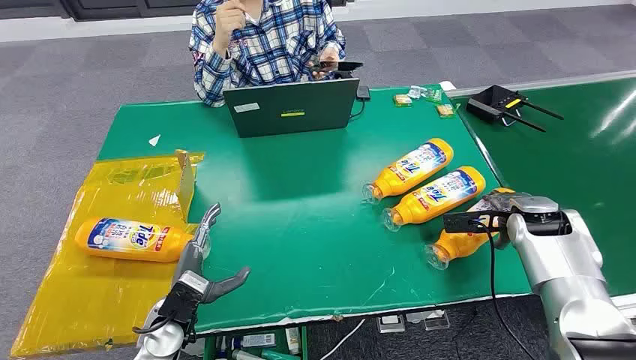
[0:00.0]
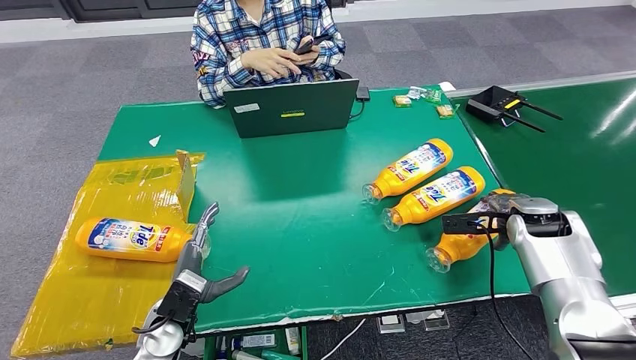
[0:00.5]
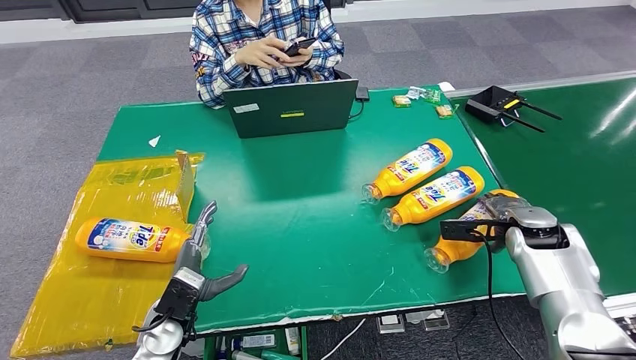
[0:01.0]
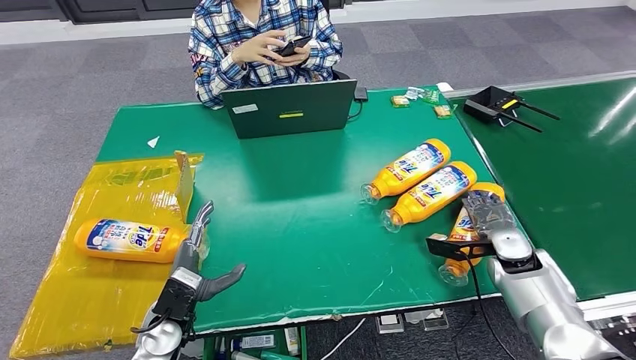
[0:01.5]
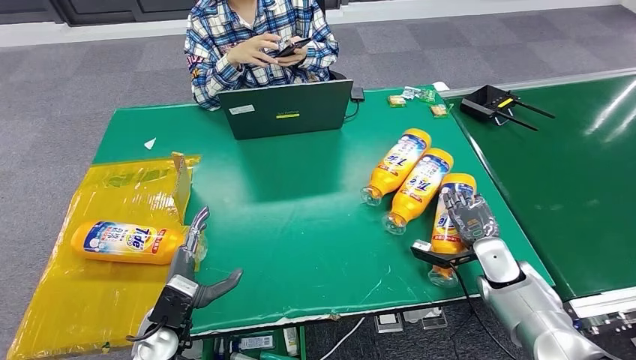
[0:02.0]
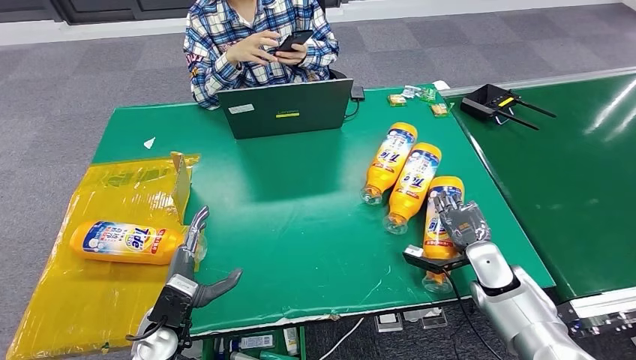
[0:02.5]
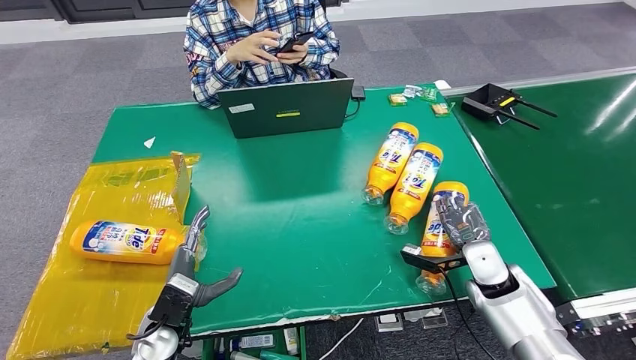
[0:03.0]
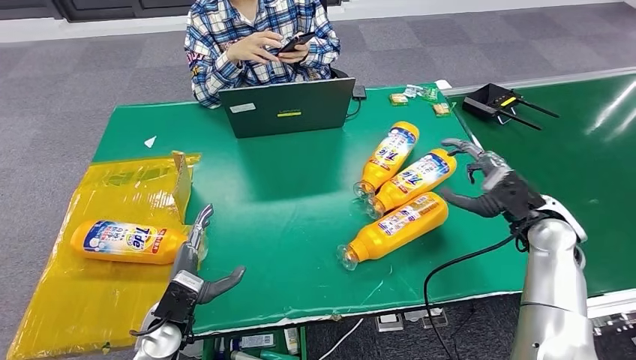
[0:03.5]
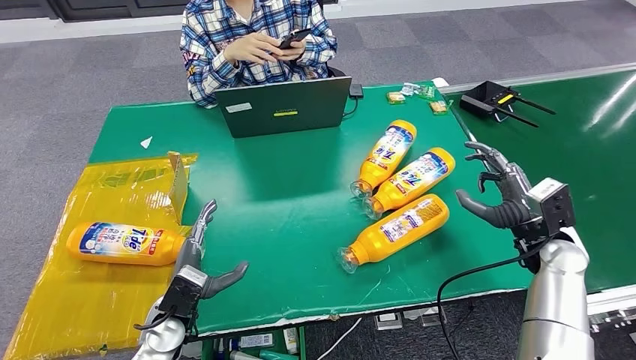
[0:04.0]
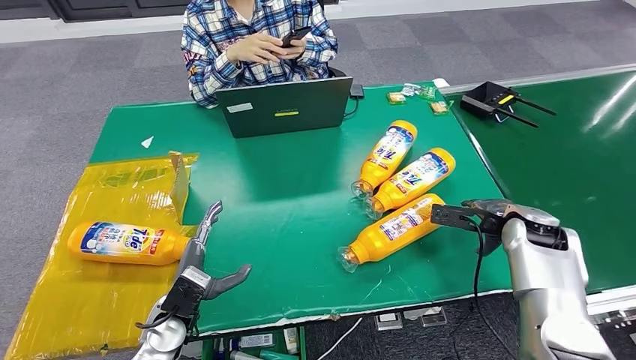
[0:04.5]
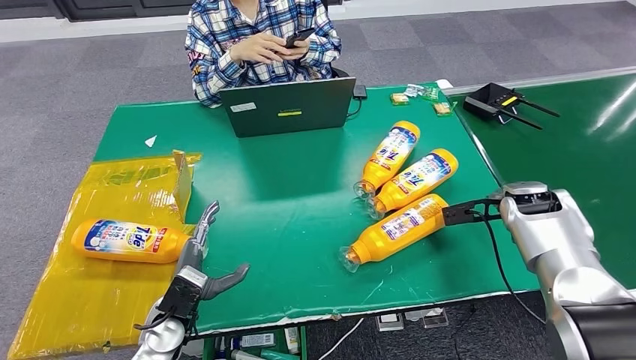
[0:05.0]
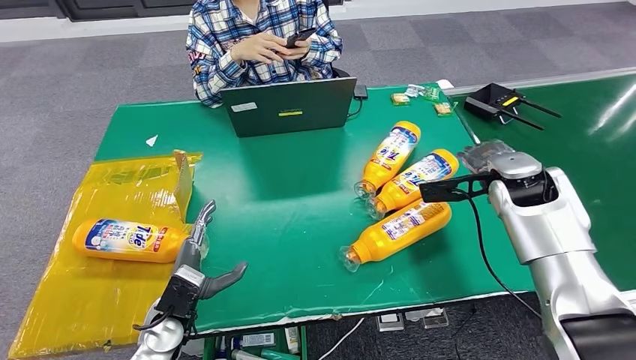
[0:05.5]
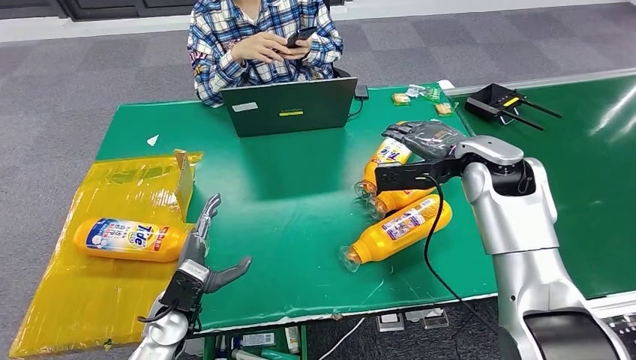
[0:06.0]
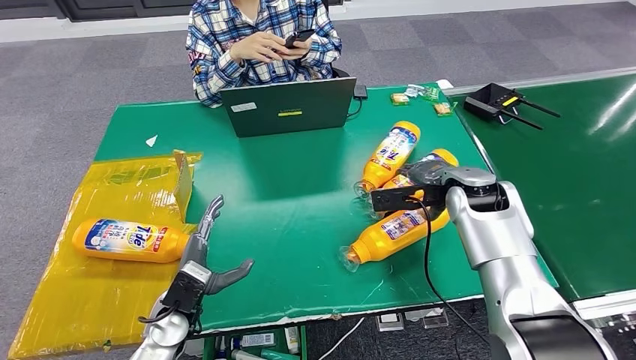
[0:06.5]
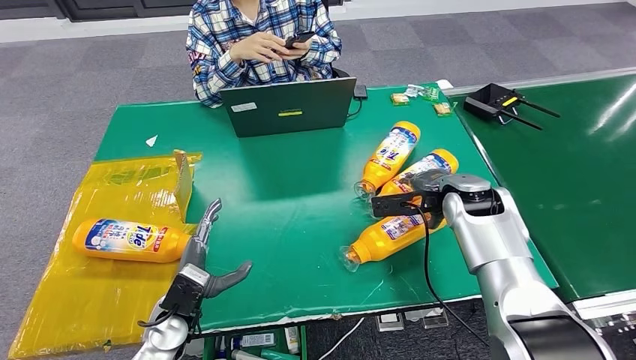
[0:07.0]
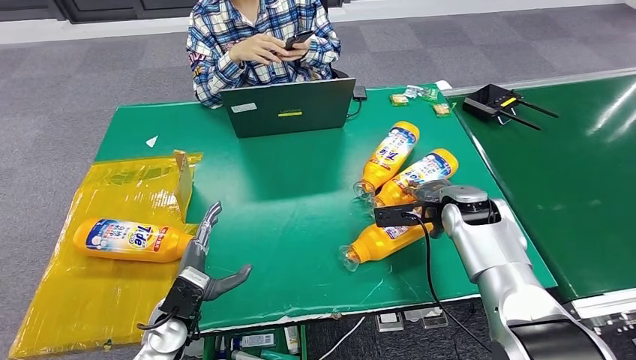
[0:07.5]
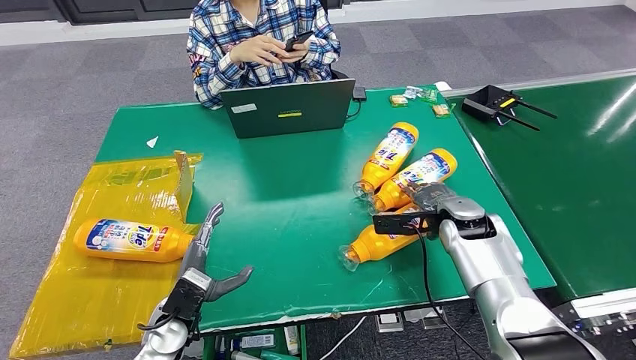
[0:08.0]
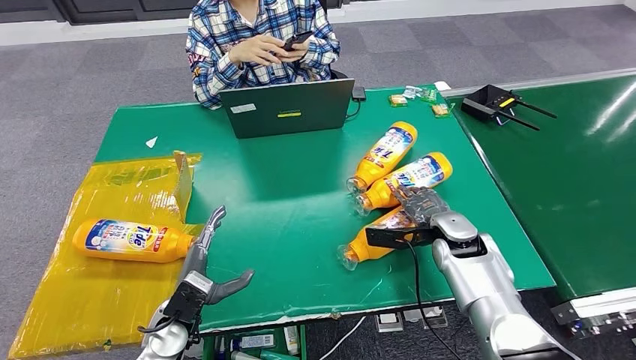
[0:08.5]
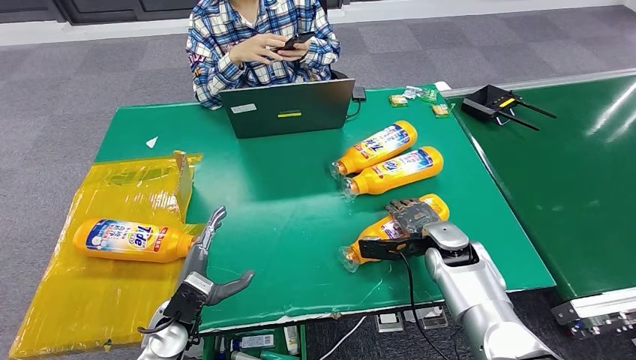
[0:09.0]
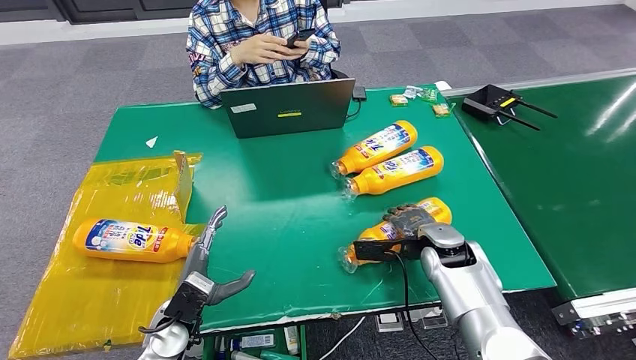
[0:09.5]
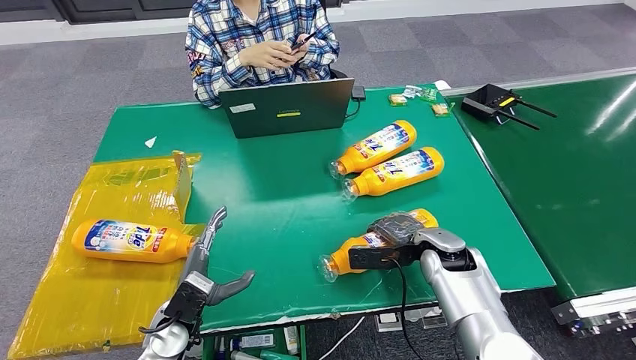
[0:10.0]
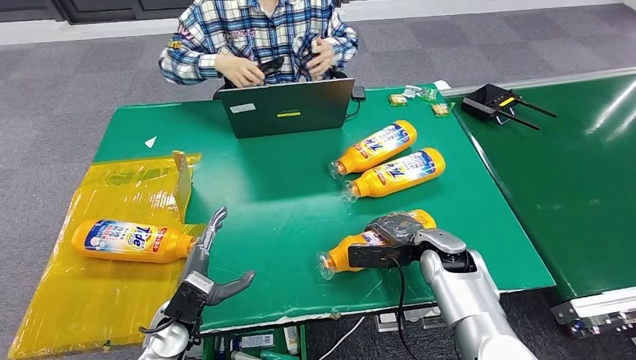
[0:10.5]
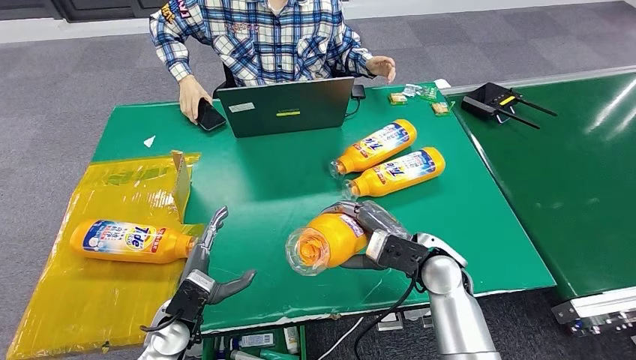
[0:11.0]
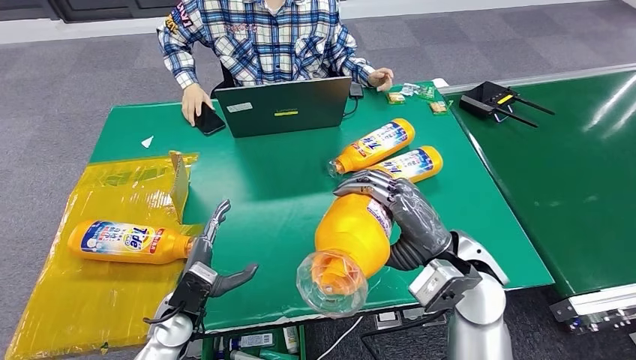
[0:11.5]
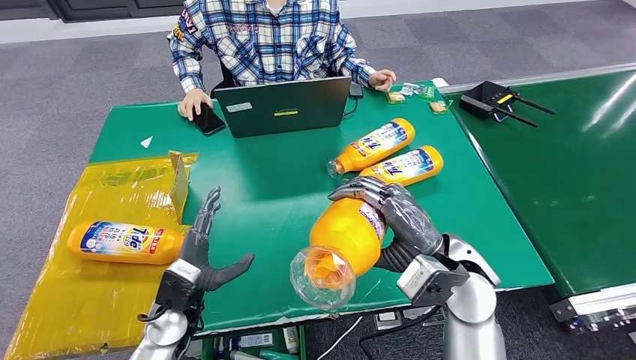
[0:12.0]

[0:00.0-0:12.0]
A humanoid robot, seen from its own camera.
Step, 0:00.0 to 0:11.0: Pick up the bottle from the table.
0:08.0 to 0:10.0: The right hand moves some 5 cm.

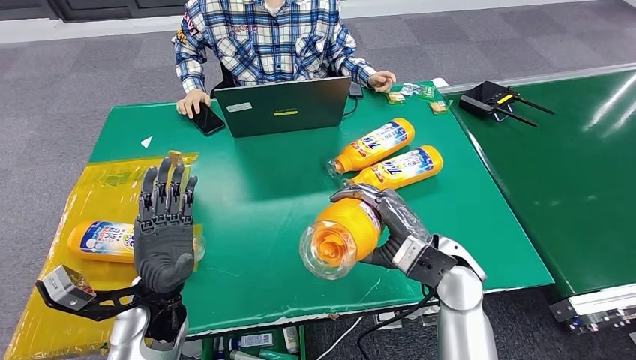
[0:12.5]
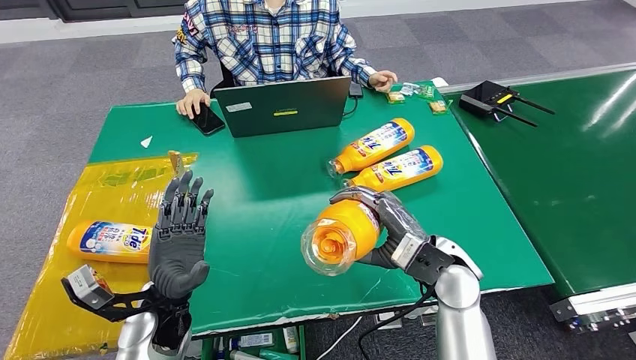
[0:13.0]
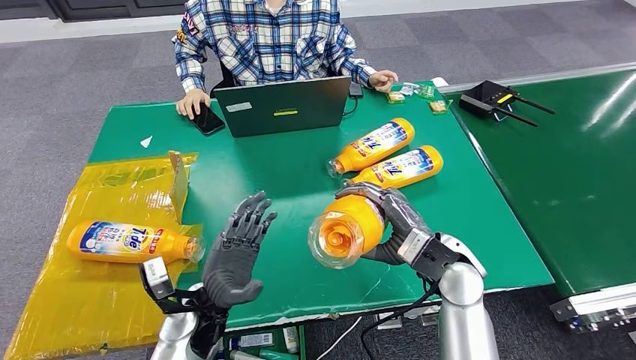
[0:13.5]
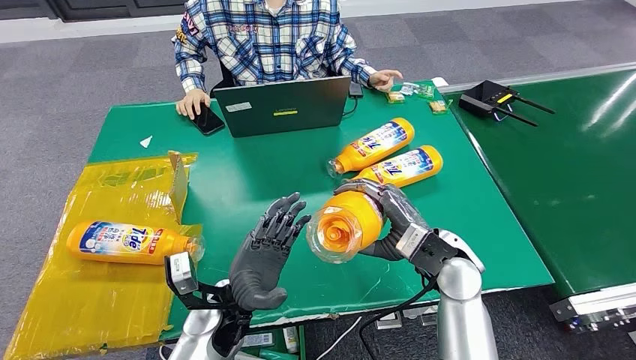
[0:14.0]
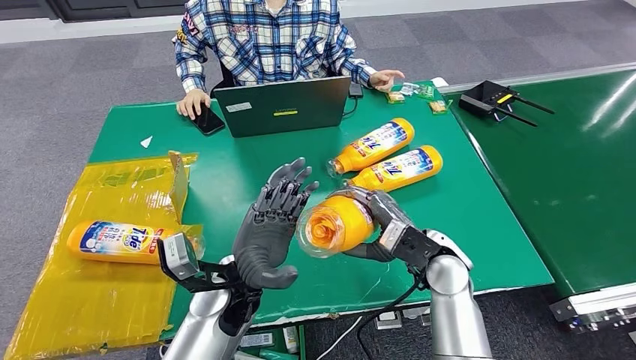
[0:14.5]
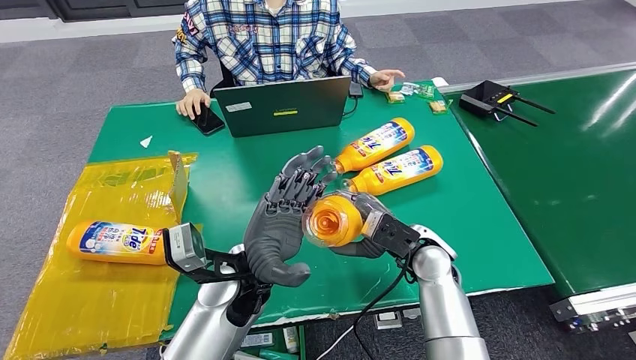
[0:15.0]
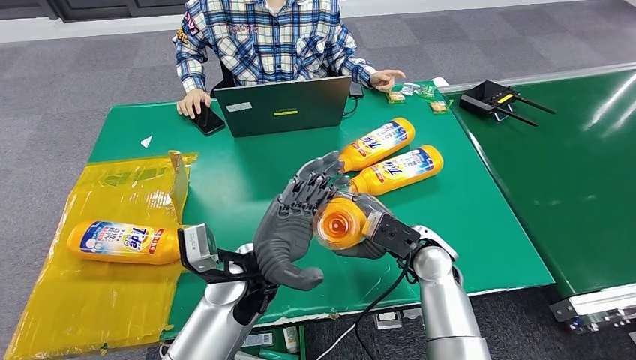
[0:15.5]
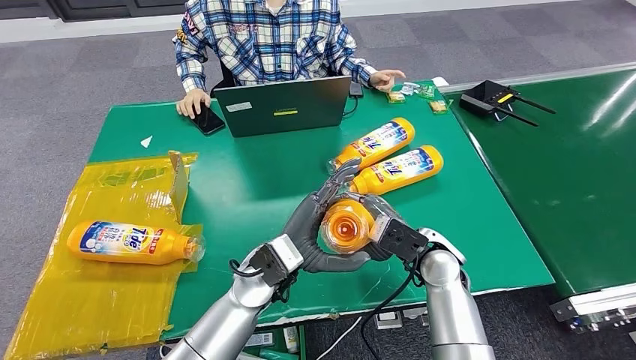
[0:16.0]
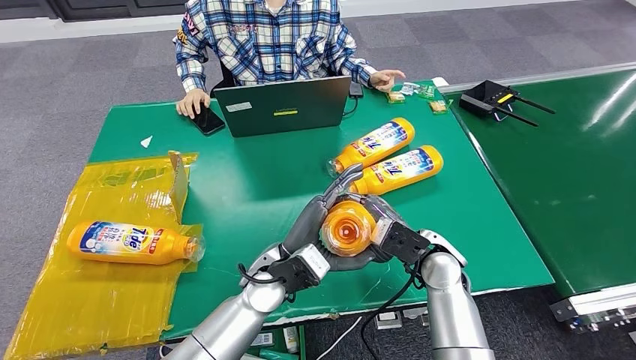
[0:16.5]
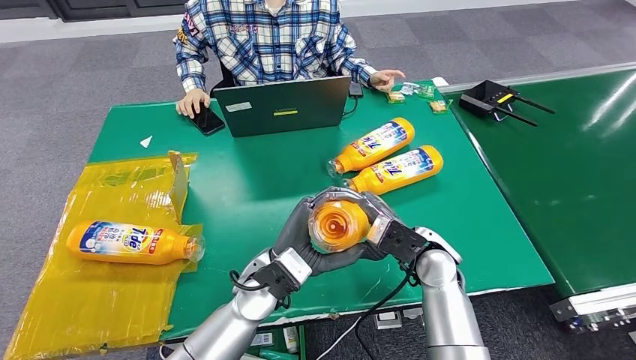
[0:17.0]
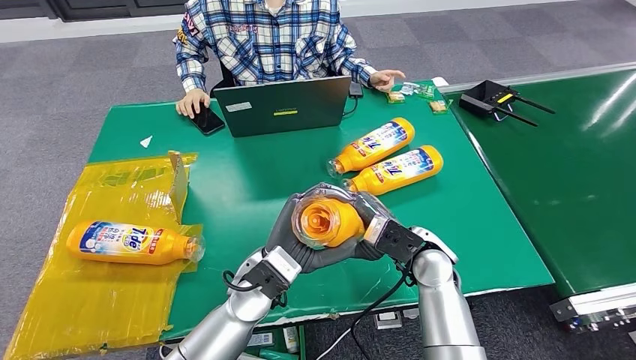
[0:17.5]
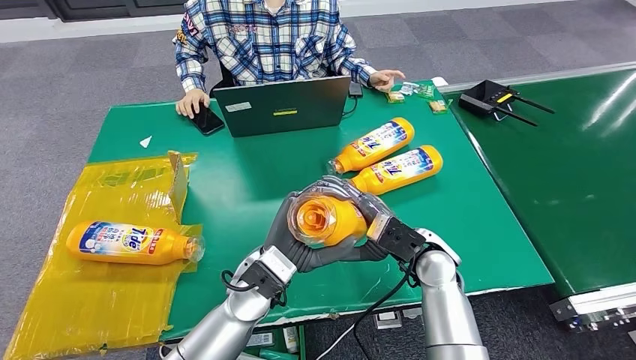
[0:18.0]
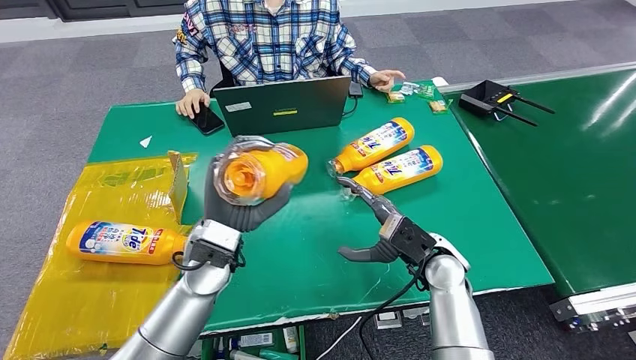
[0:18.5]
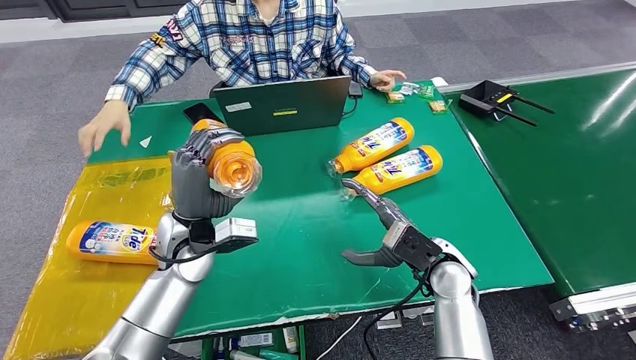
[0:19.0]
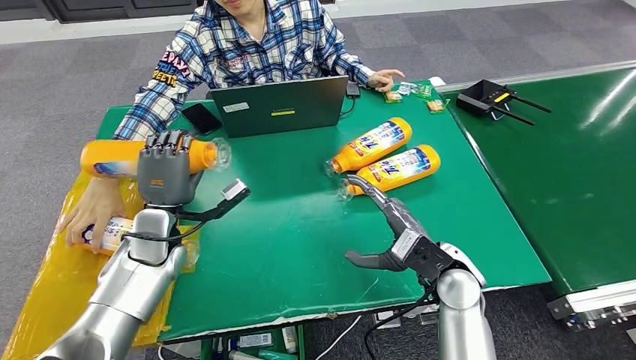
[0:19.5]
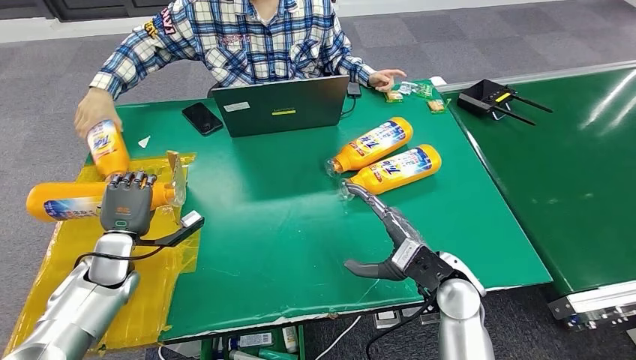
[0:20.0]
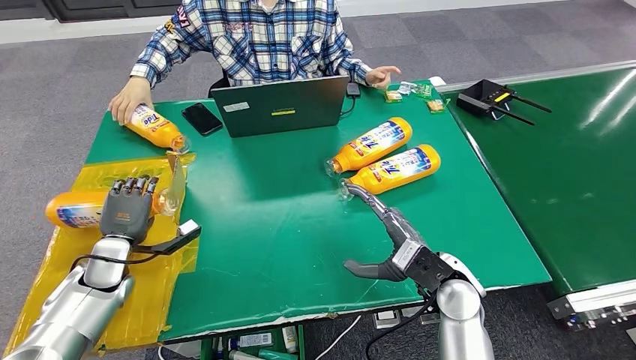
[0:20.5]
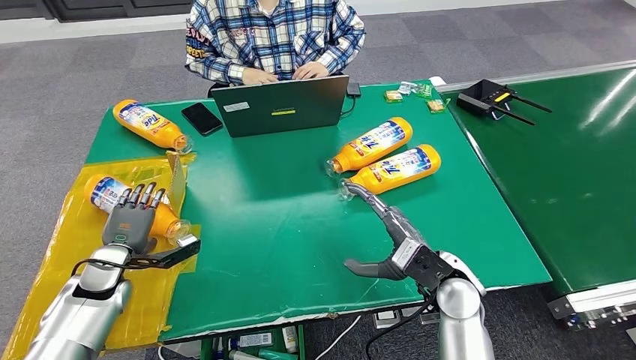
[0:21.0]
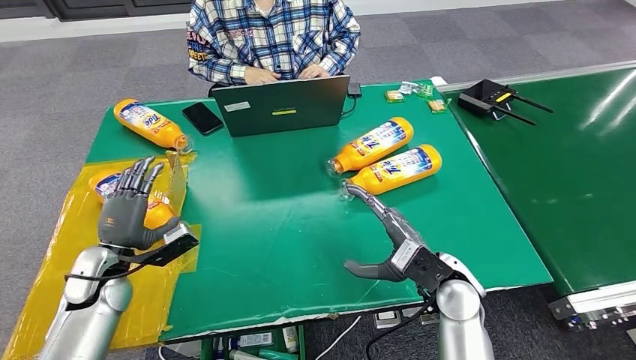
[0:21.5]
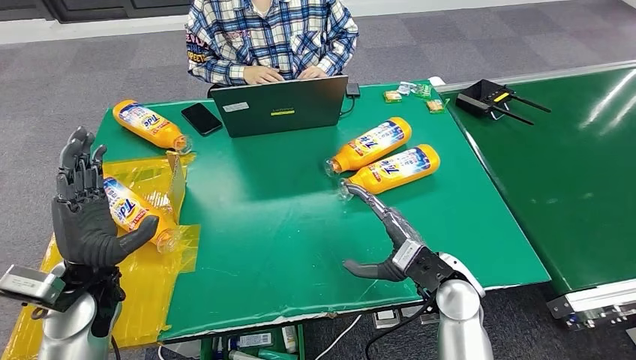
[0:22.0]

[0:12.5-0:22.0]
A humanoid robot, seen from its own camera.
Step, 0:12.5 to 0:22.0: Turn the bottle to the front side.
0:12.5 to 0:14.5: The left hand heads to the right, covering roughly 10 cm.
0:14.5 to 0:16.5: The left hand changes place by approximately 5 cm.
0:16.5 to 0:18.0: The hands stay close to where they were, moving slightly.
